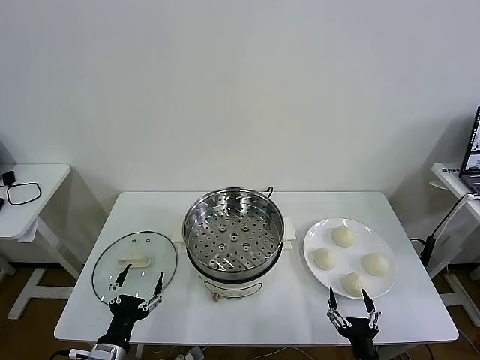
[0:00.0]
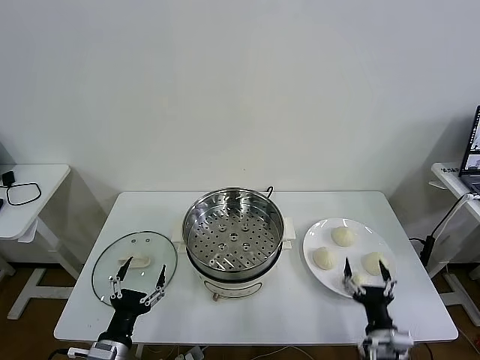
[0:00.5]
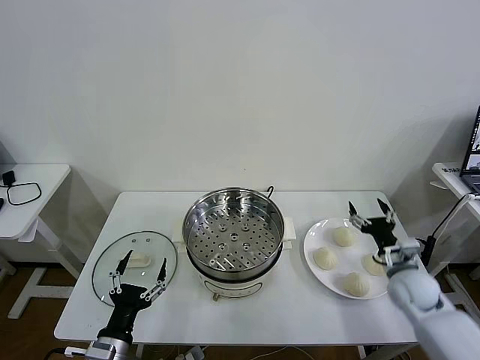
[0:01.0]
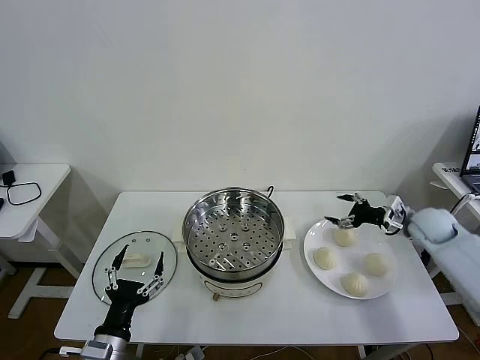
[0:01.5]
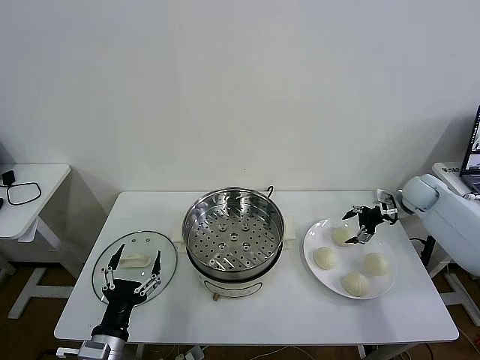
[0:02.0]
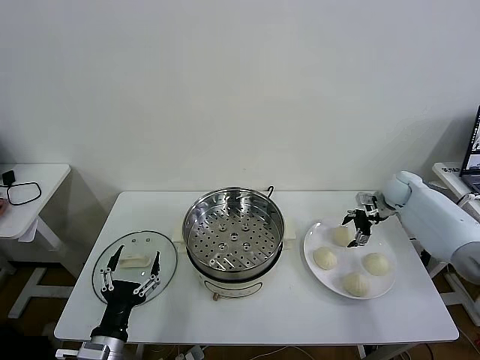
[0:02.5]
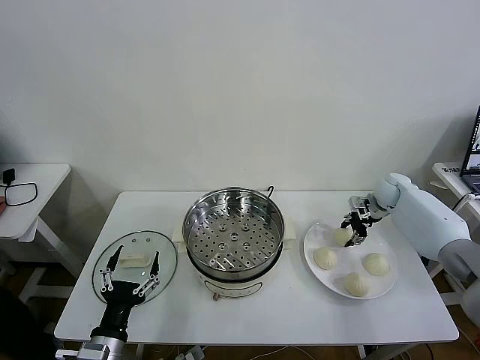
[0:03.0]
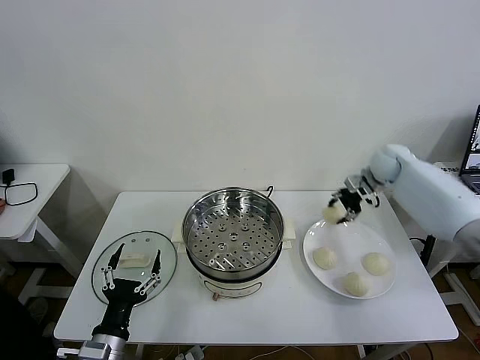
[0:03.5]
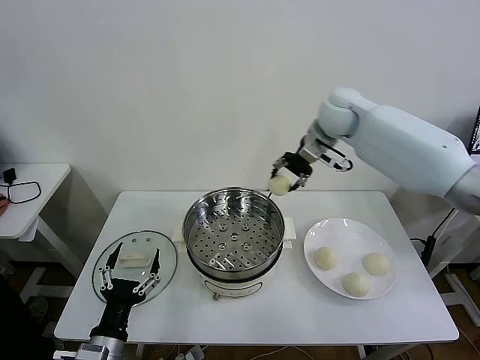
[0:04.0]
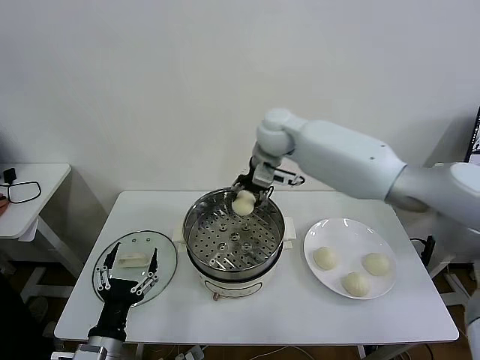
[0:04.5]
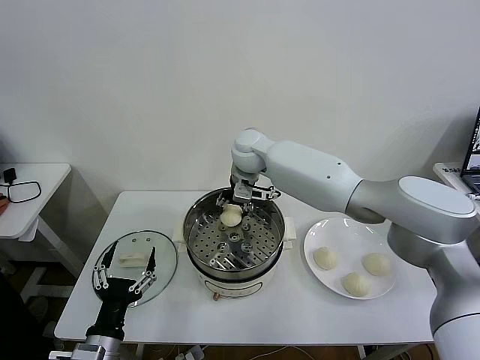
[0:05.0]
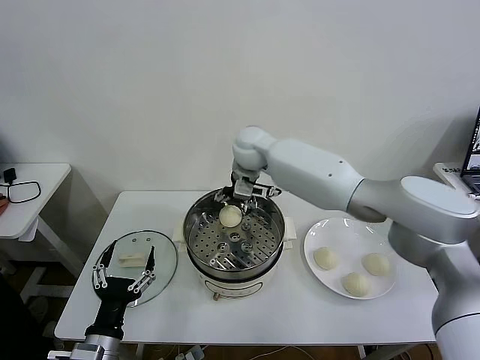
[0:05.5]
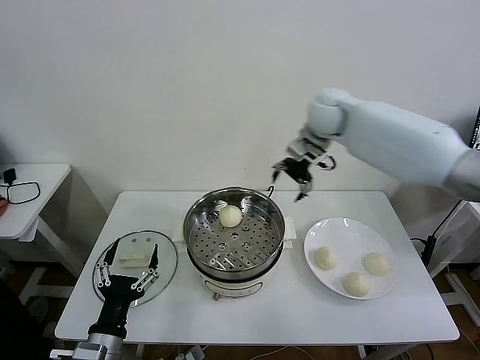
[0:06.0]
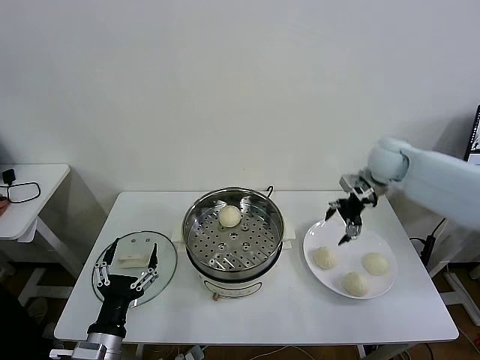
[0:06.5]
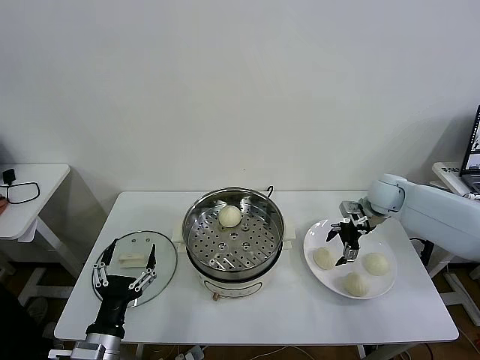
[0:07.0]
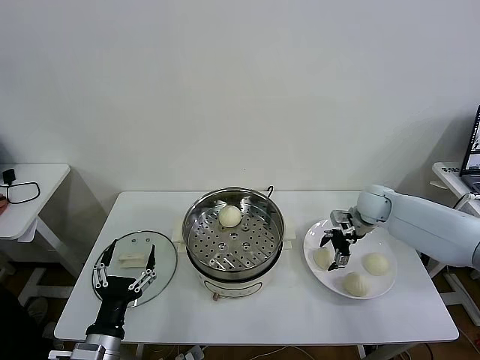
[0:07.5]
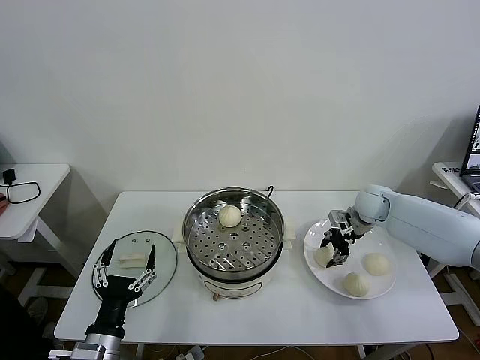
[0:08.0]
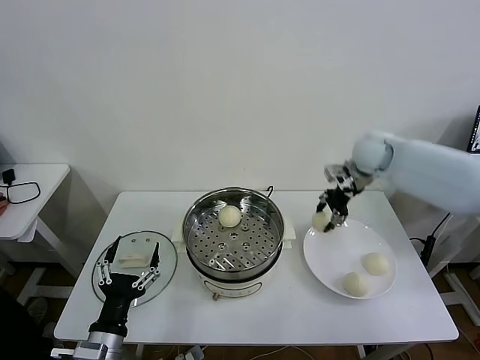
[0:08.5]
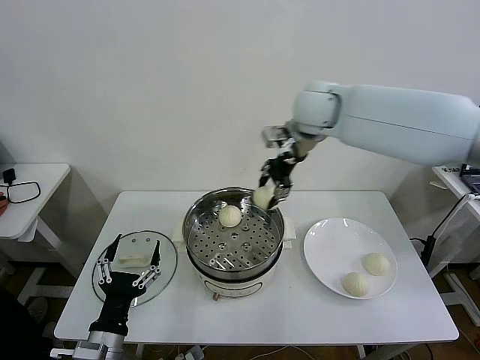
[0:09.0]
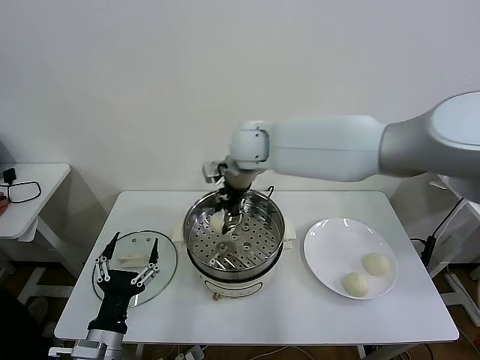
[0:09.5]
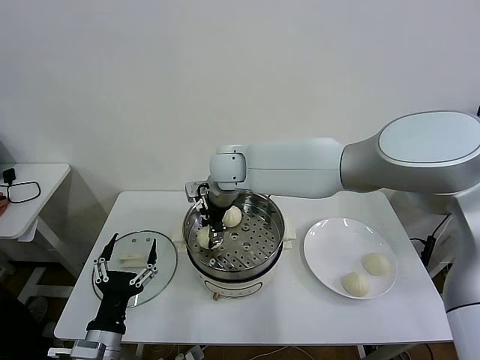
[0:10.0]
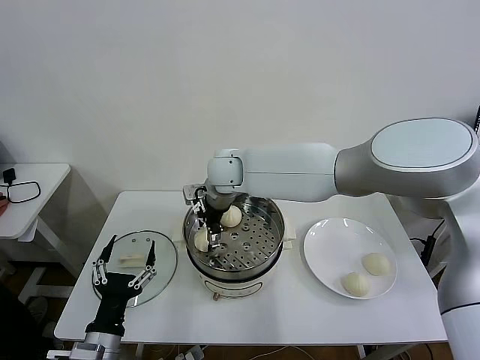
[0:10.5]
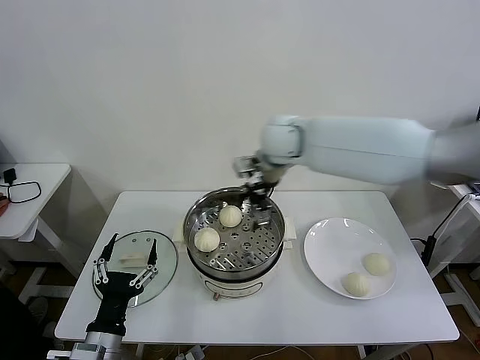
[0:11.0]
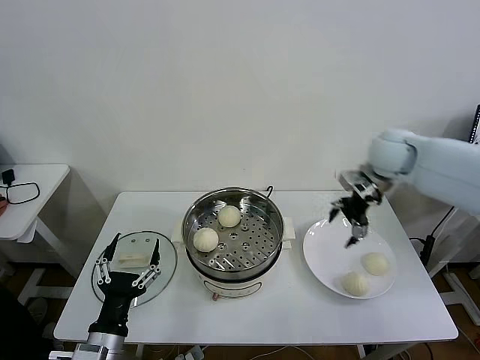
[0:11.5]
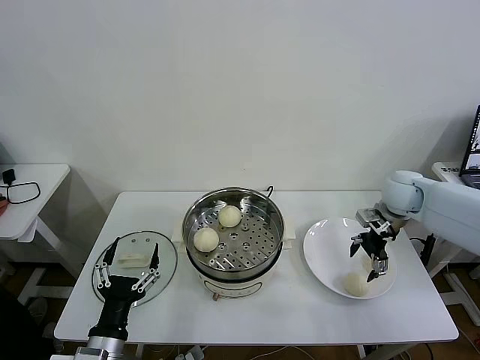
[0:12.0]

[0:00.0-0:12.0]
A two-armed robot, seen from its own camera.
Task of the whole recording: take steamed baozi put them in steamer then cover it.
Step, 0:00.0 to 0:03.0: Grasp the baozi in the plate with right gripper.
Step, 0:03.5 to 0:05.5: Place the baozi on the steamer with right gripper.
Step, 0:06.0 to 0:07.5: Grasp the baozi in the plate with right gripper.
Step, 0:08.0 to 0:10.5: Place the baozi on the steamer with right gripper.
0:02.0 to 0:04.0: The right gripper travels to the left and upward by approximately 35 cm, and closes up.
0:04.0 to 0:06.0: The right gripper travels to the left and back again, some 15 cm each way, and opens.
0:06.0 to 0:08.0: The right gripper travels downward and to the right by approximately 25 cm, and closes.
0:08.0 to 0:10.0: The right gripper goes some 35 cm to the left.
0:10.0 to 0:12.0: The right gripper moves to the right, approximately 40 cm, and opens up.

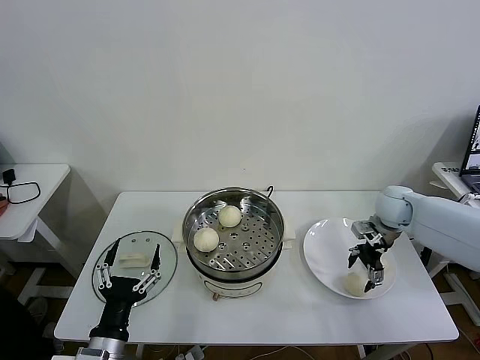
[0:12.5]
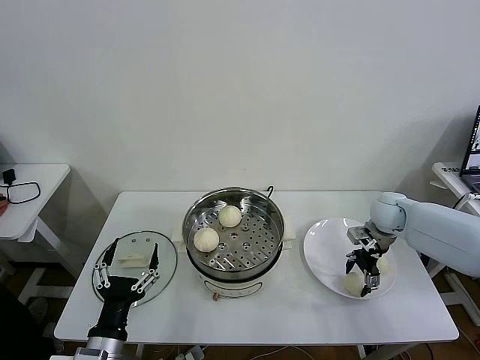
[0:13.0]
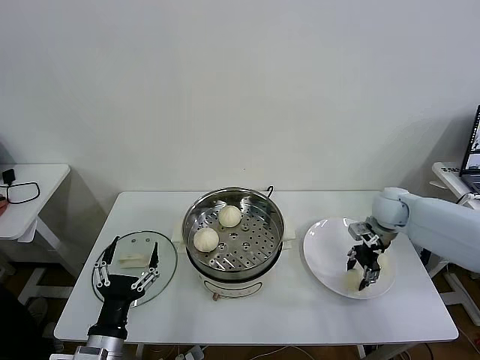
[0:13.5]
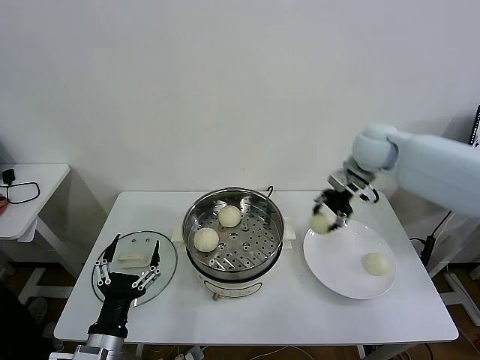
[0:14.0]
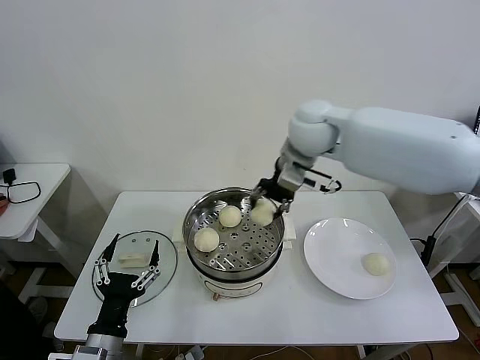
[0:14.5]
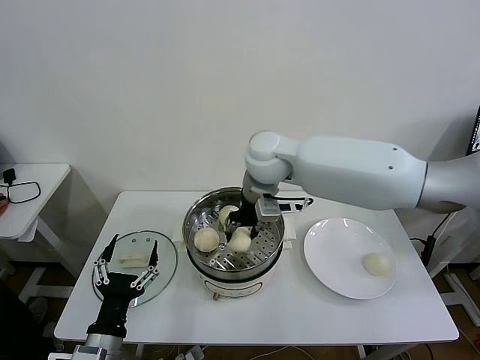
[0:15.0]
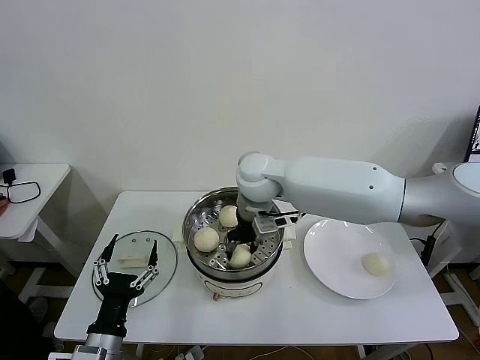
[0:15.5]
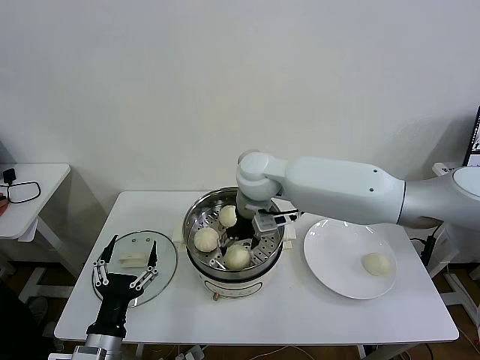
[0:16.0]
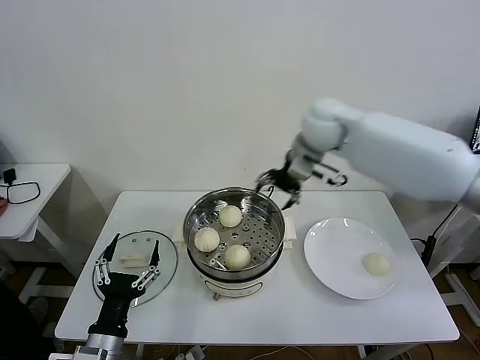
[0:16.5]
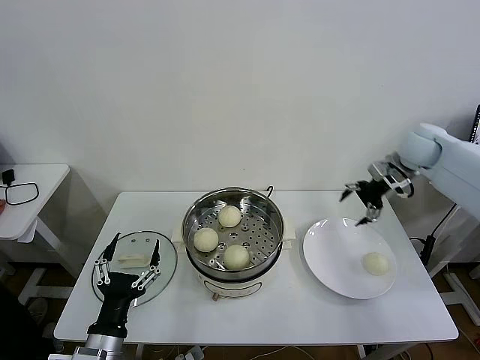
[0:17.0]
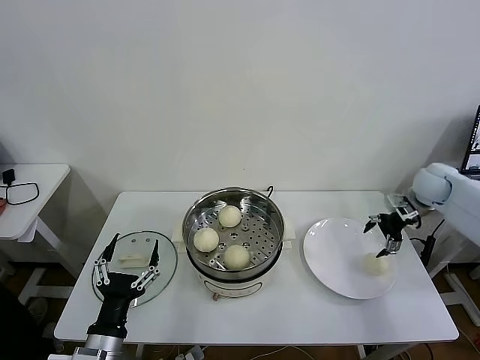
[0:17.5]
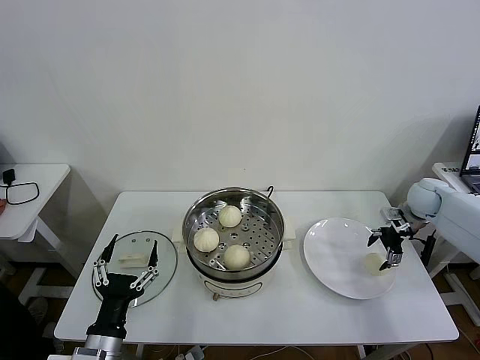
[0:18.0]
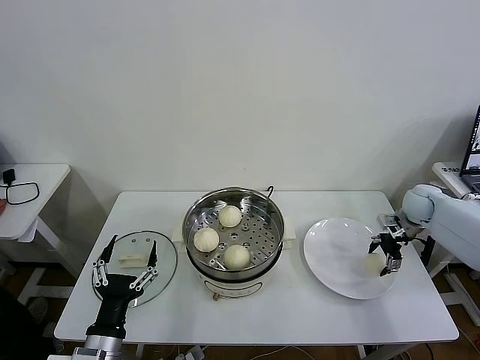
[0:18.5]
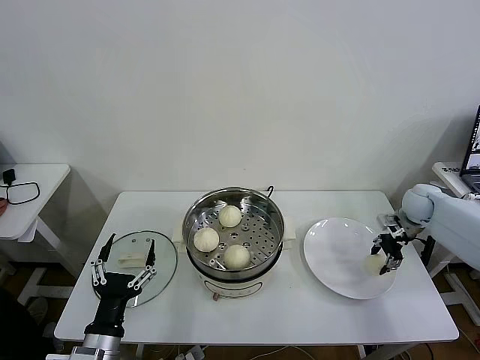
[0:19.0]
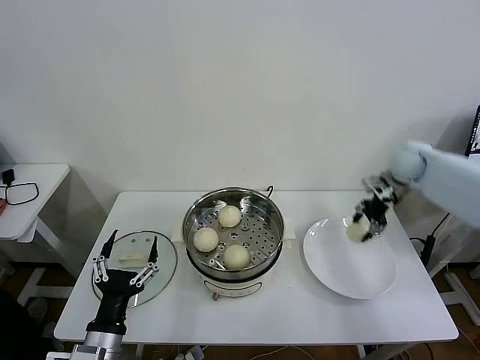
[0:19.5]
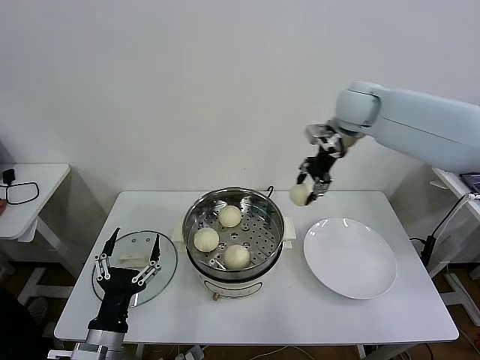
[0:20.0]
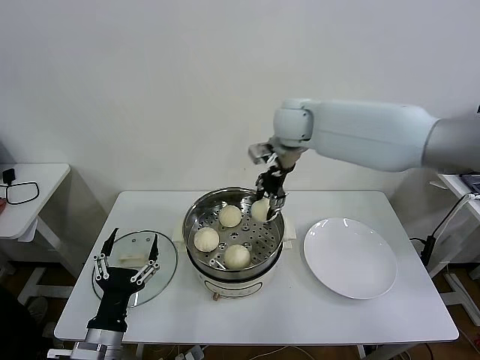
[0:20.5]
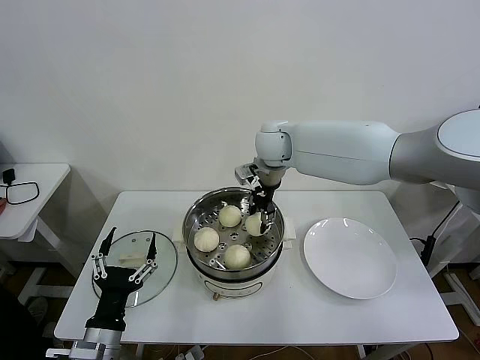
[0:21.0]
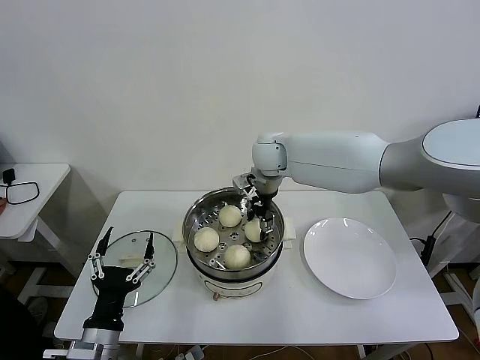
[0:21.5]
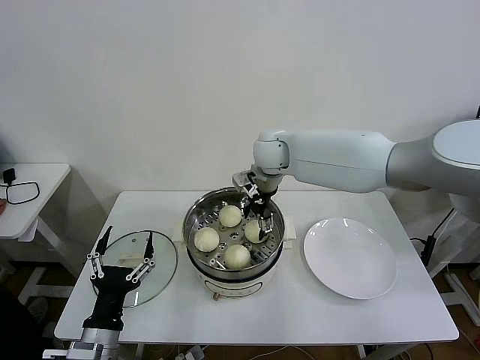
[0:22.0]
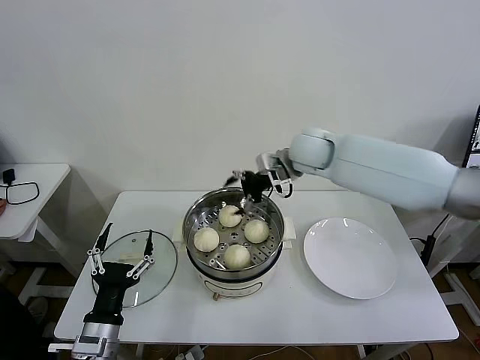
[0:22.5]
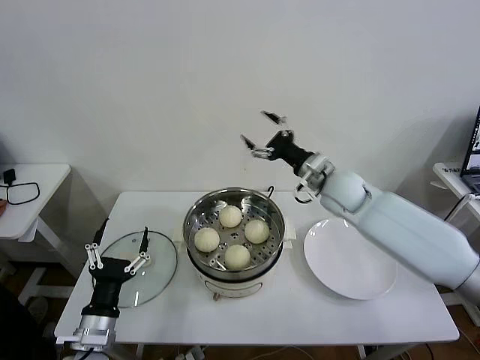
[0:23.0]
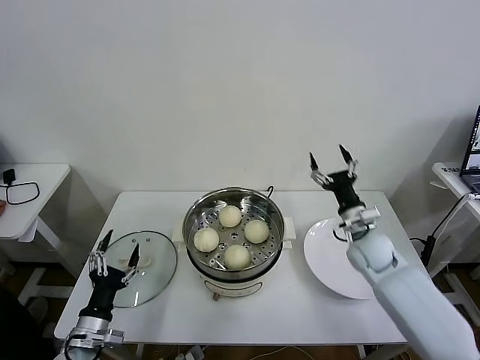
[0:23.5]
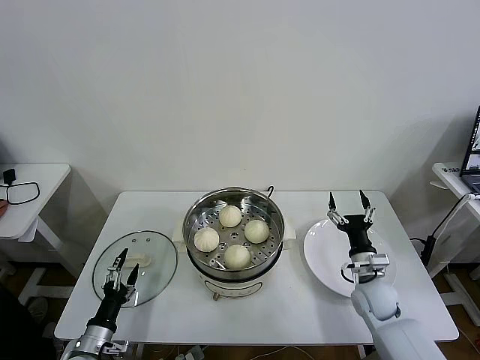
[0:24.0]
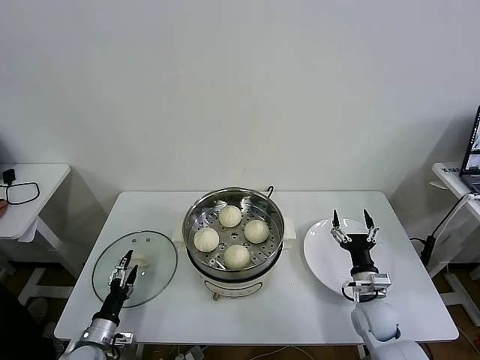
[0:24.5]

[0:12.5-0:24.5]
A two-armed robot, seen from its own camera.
Task of the whole recording: take steamed baozi put them in steamer then cover it.
Step, 0:13.5 to 0:16.0: Place the baozi on the steamer with right gripper.
Step, 0:16.5 to 0:18.5: Grasp the baozi in the plate with right gripper.
Step, 0:19.5 to 0:21.5: Place the baozi on the steamer with right gripper.
0:12.5 to 0:14.5: The right gripper shifts approximately 35 cm to the left and upward, and closes.
0:14.5 to 0:16.5: The right gripper travels to the right by about 10 cm, and opens.
0:16.5 to 0:18.5: The right gripper heads to the right and downward, covering some 35 cm.
0:18.5 to 0:20.5: The right gripper is displaced to the left and upward by roughly 40 cm, and closes up.
0:20.5 to 0:22.5: The right gripper changes place by roughly 5 cm, and opens.
0:22.5 to 0:24.5: The left gripper heads downward and to the left, covering about 20 cm. Meanwhile the right gripper is displaced downward, backward and to the right by some 40 cm.

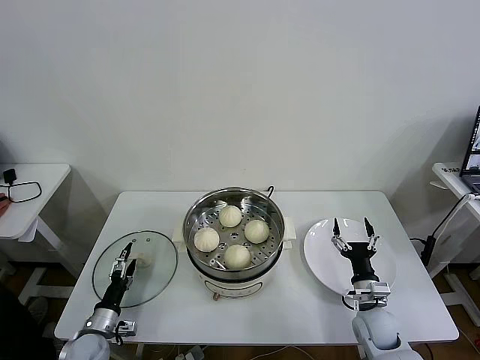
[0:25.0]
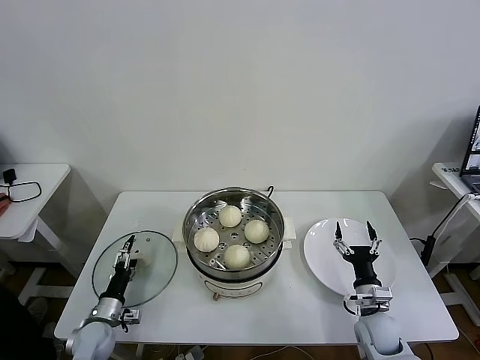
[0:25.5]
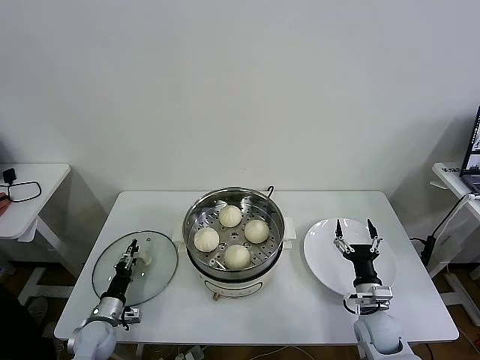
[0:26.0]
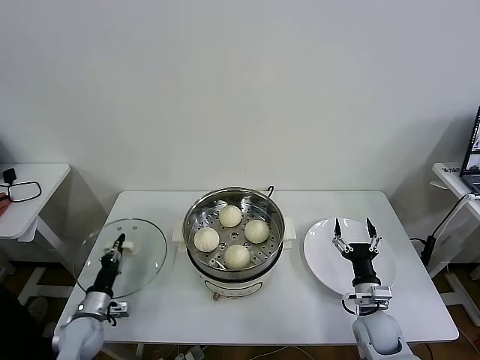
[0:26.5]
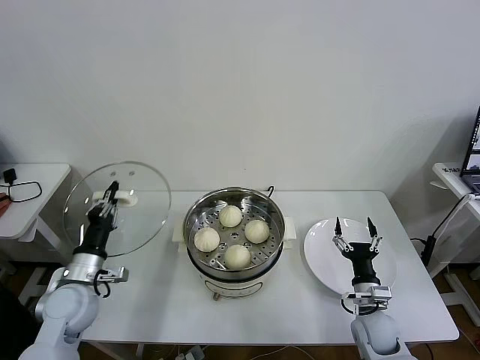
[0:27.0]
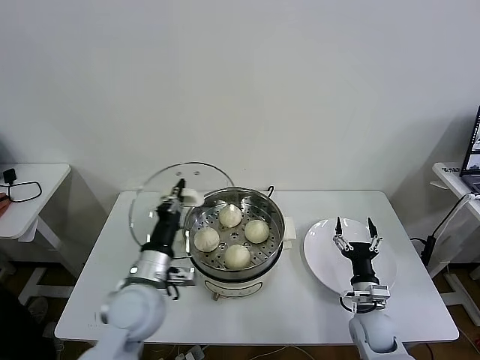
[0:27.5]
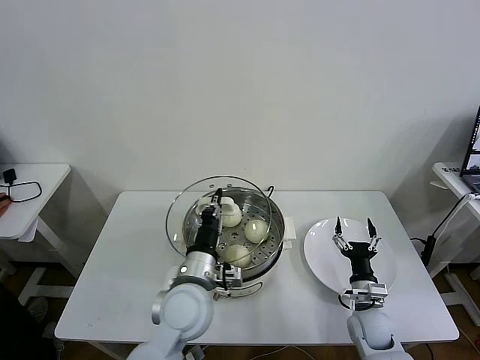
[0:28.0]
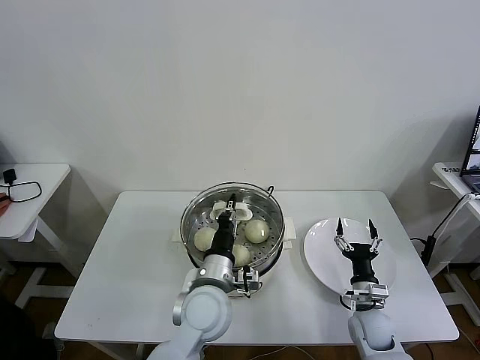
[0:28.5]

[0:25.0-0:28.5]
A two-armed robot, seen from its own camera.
Task of the whole recording: take steamed baozi put them in steamer then cover it.
0:25.0 to 0:27.0: The left gripper shifts some 15 cm upward, and closes up.
0:27.0 to 0:28.5: The left gripper goes approximately 30 cm to the right.
